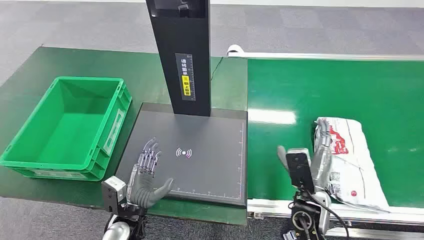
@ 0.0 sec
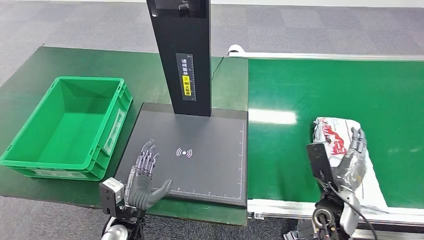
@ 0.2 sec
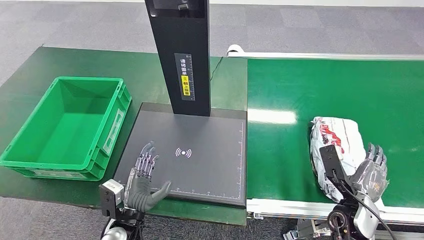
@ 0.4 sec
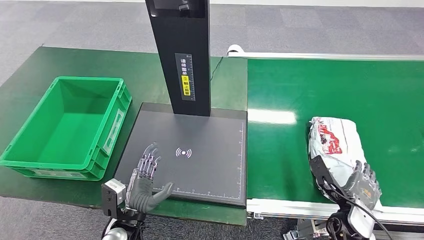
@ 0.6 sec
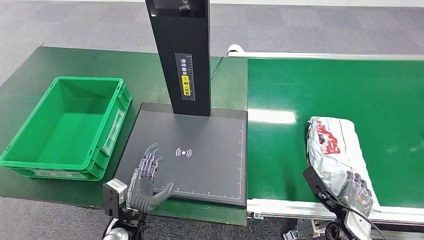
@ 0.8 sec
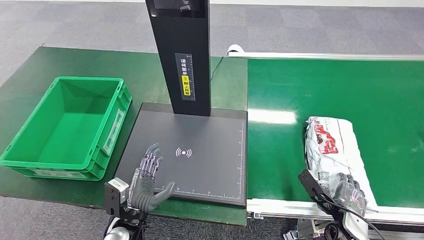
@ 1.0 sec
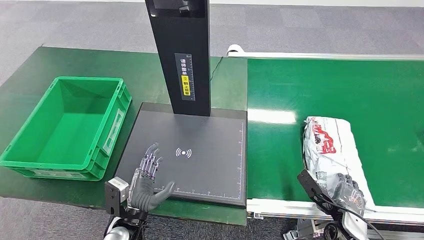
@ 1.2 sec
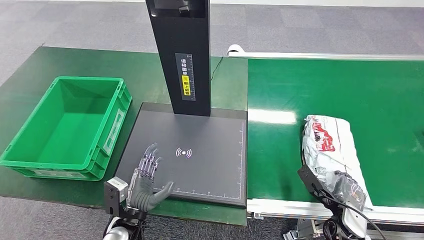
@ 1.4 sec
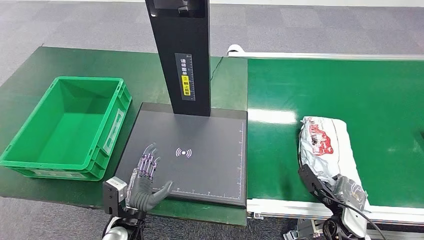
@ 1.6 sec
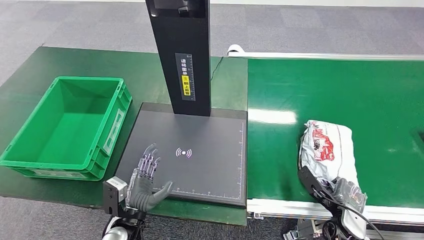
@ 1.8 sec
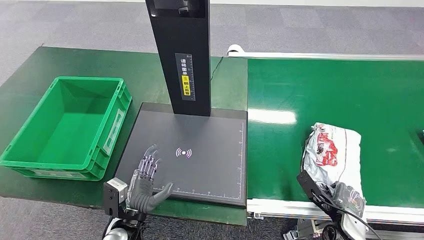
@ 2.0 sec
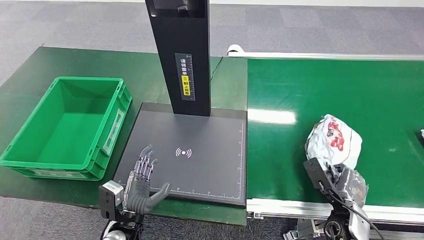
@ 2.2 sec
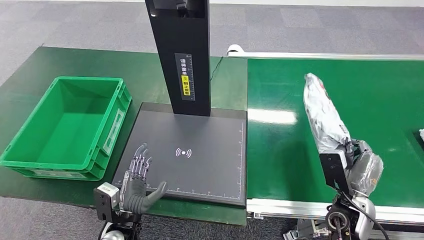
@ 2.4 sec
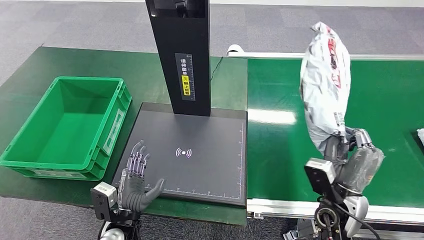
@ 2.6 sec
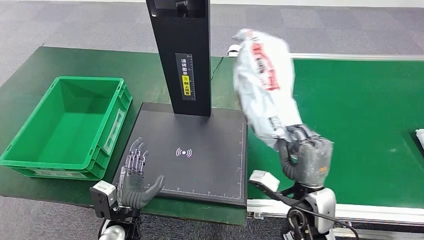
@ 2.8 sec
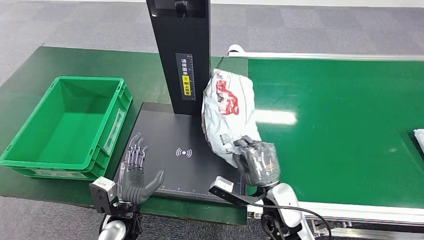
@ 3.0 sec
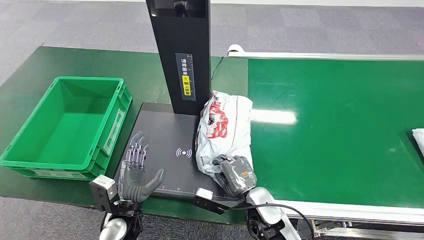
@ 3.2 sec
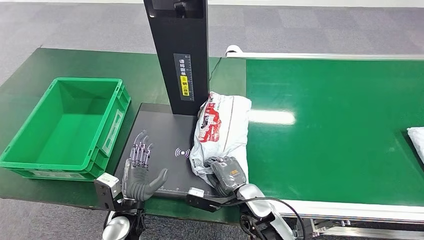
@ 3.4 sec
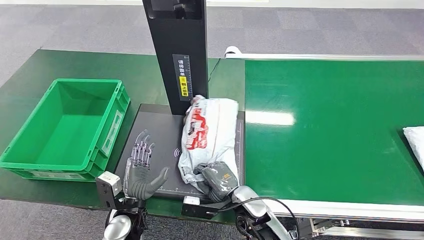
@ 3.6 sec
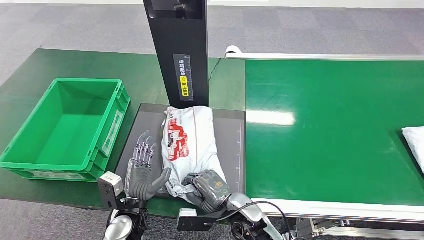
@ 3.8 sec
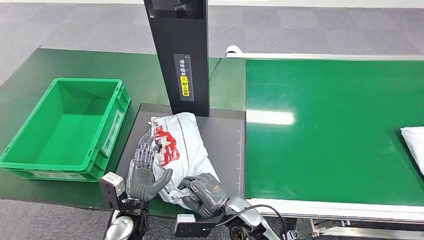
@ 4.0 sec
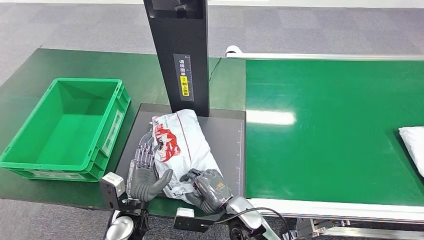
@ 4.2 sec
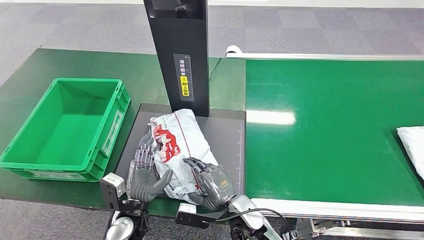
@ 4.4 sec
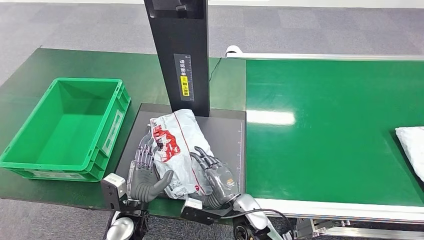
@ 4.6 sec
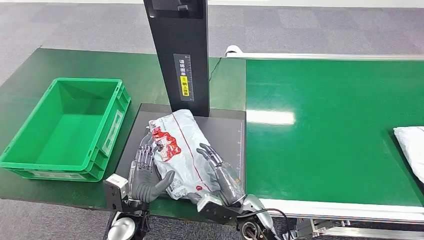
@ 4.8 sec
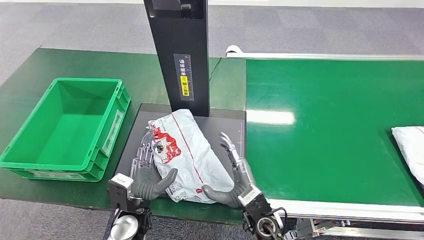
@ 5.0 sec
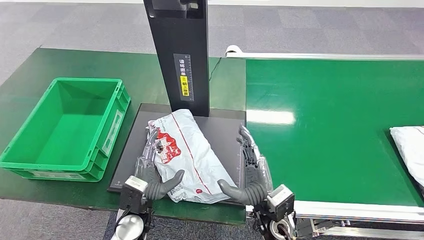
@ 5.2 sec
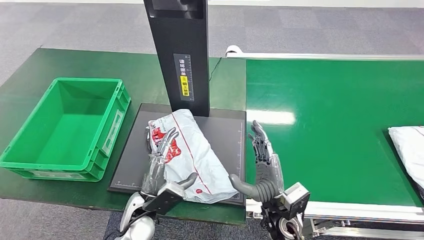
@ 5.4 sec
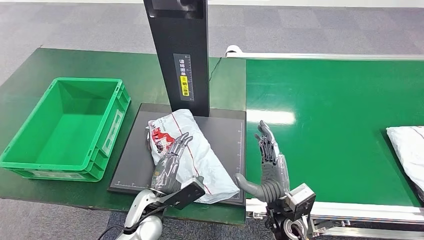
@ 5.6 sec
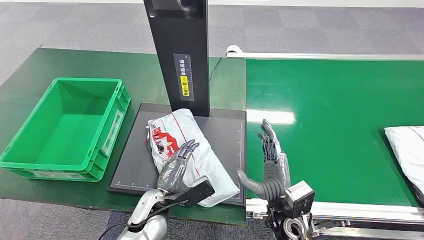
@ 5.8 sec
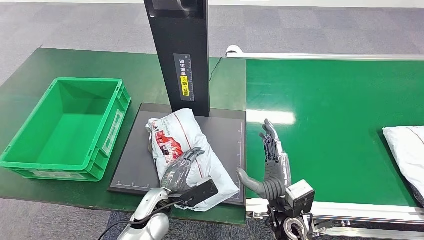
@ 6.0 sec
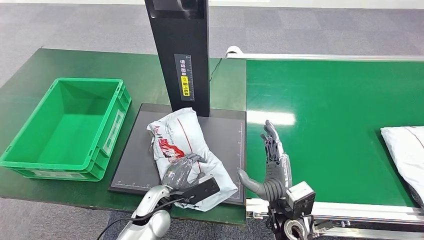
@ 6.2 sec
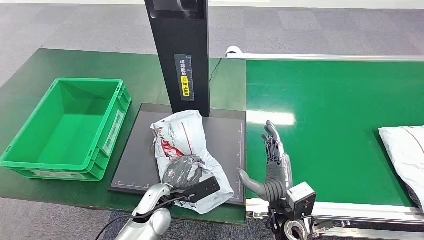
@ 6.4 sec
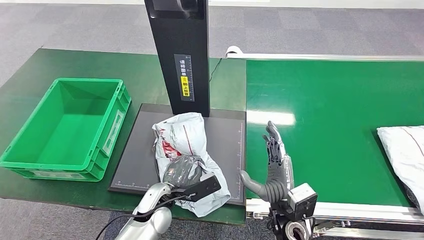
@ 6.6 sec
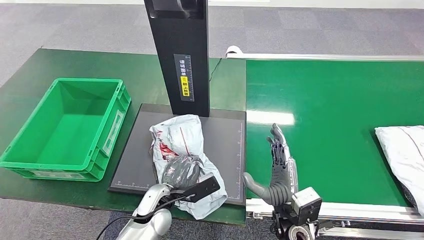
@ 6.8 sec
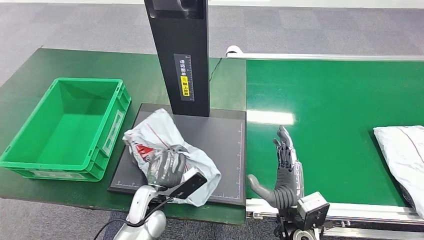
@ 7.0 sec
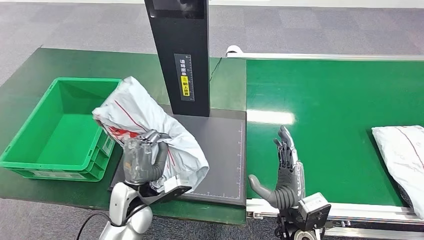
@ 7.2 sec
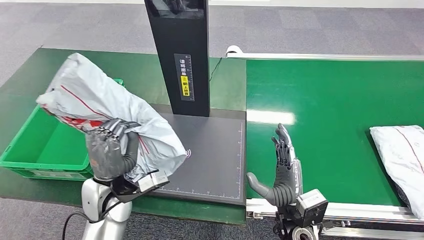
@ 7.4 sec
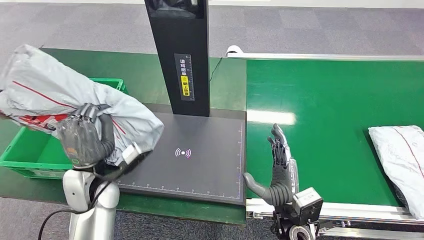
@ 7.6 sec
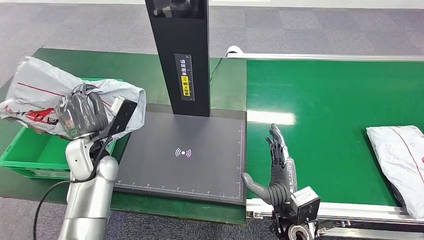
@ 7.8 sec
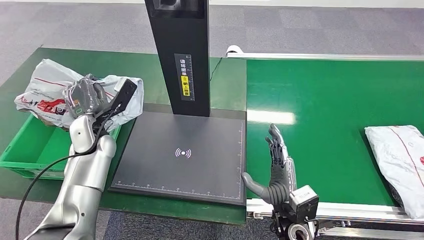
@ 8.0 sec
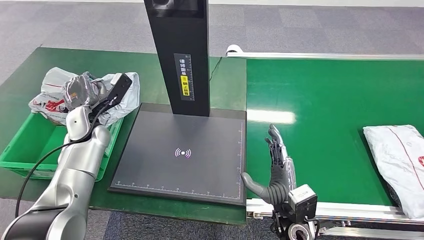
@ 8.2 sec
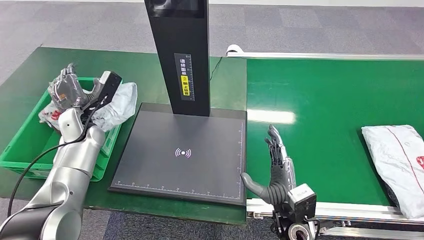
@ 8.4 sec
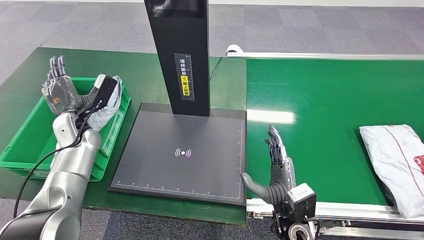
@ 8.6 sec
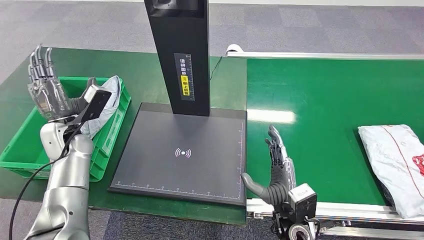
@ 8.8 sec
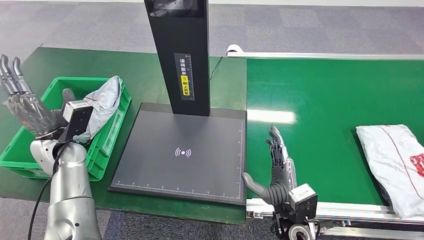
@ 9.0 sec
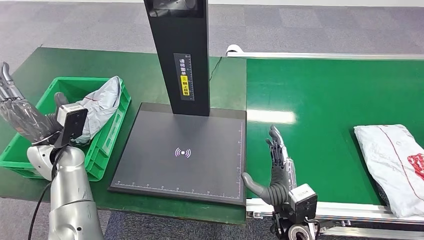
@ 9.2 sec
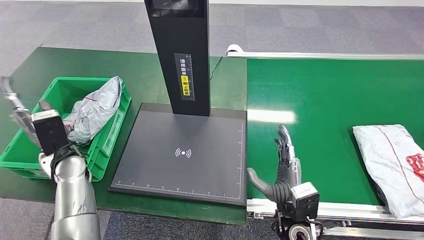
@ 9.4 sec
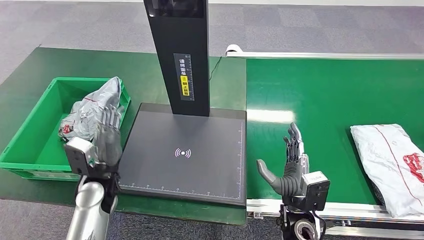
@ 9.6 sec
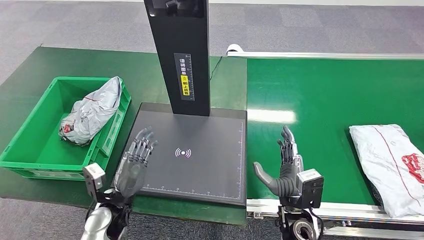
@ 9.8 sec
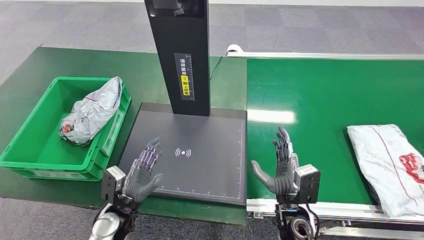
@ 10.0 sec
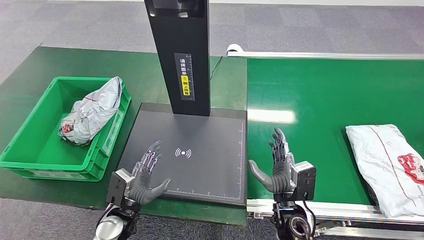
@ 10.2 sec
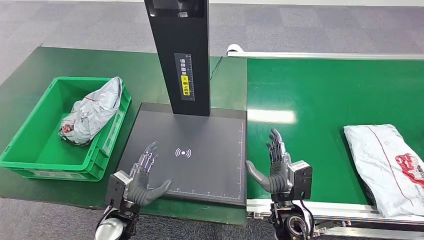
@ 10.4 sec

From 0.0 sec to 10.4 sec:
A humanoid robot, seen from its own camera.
Step, from 0.0 sec to 2.4 sec: Pick up the package from the conveyor belt.
Step, from 2.6 sec to 4.6 sec: Place the package onto the inbound machine.
Step, from 4.8 sec to 7.2 sec: Pick up the package from the inbound machine.
Step, from 7.6 sec to 10.4 sec: Place the package into the parcel locker.
From 4.4 sec to 6.0 sec: The left hand moves approximately 5 cm. Meanwhile the right hand heads to the right, covering some 5 cm.
From 9.0 sec to 10.4 sec: The left hand travels downward, backward and to the right by about 25 cm.
